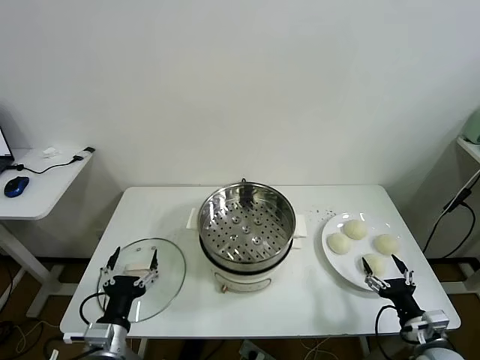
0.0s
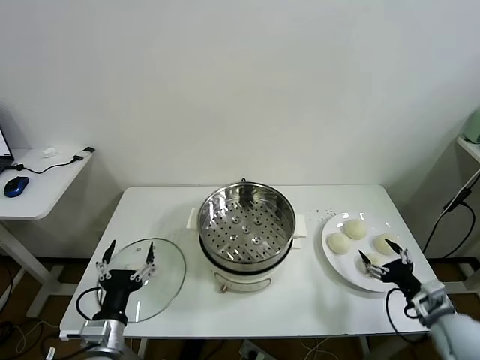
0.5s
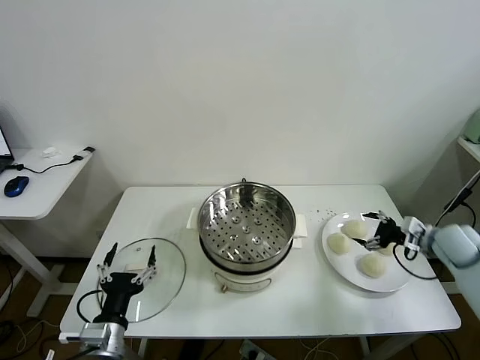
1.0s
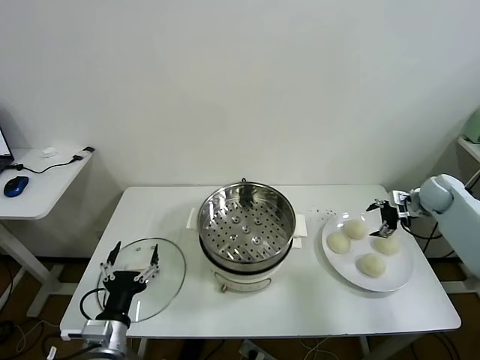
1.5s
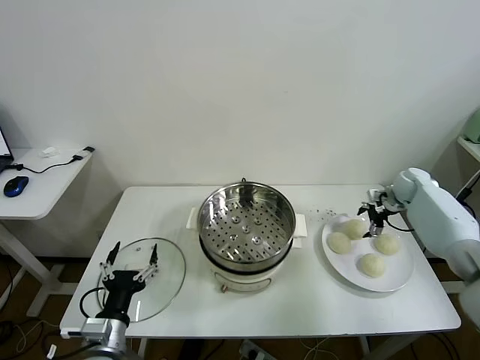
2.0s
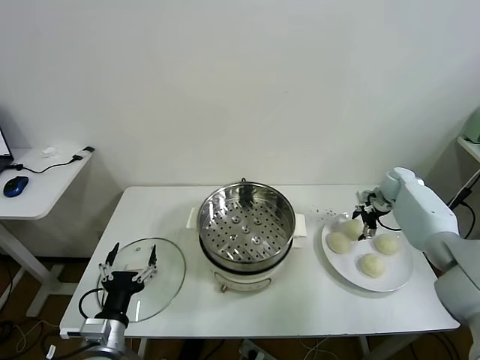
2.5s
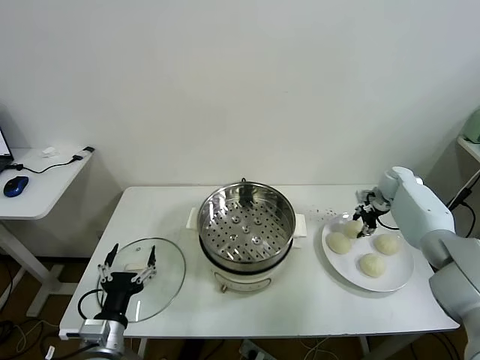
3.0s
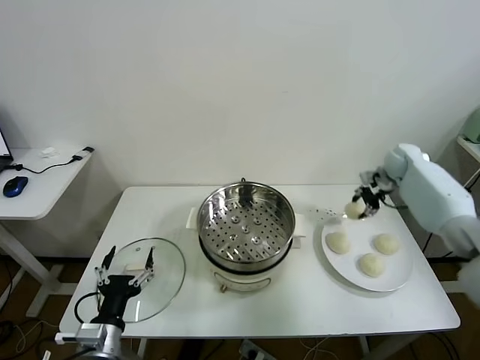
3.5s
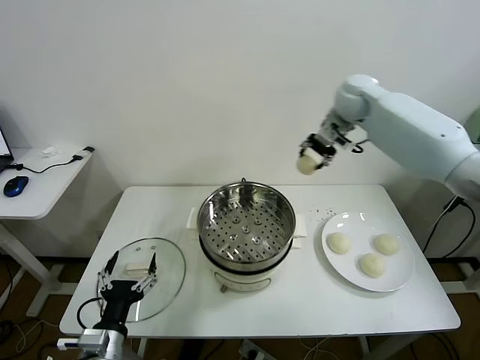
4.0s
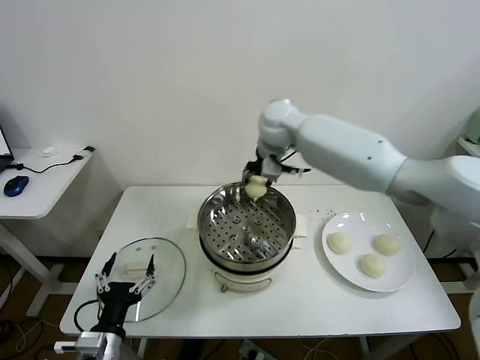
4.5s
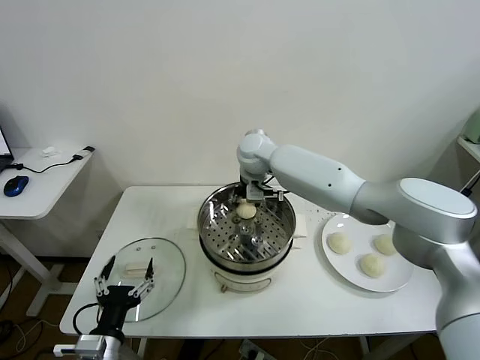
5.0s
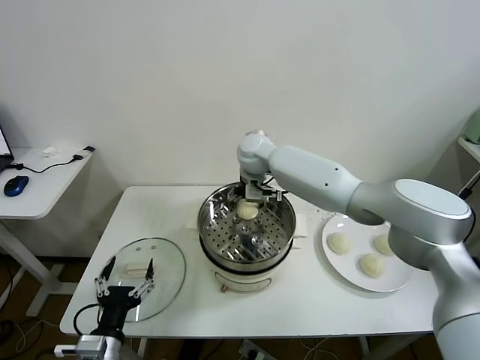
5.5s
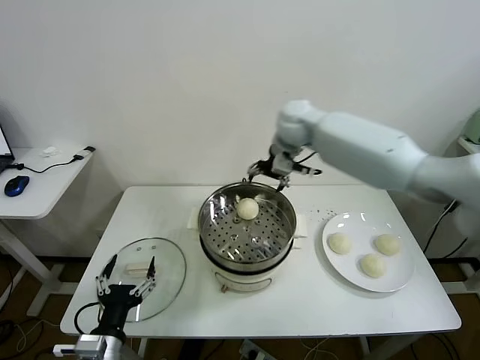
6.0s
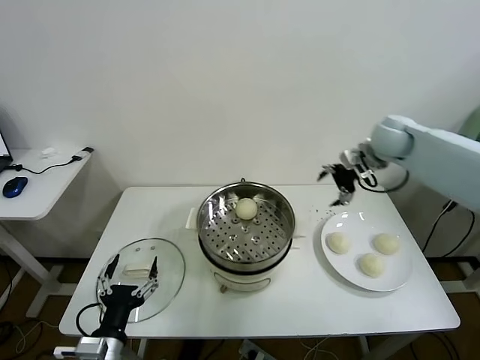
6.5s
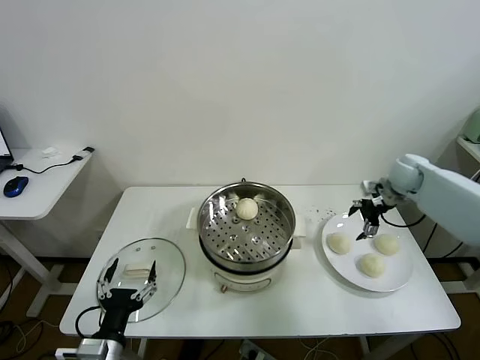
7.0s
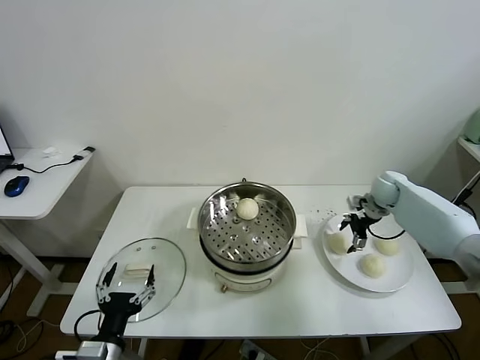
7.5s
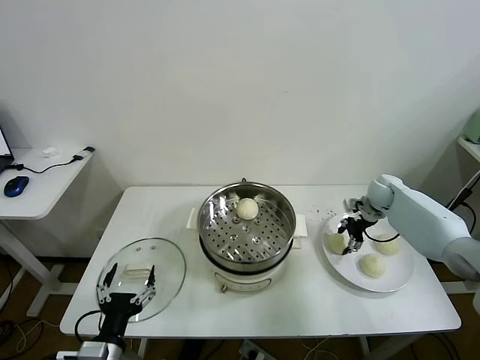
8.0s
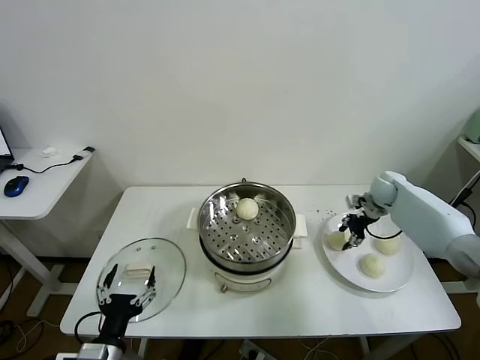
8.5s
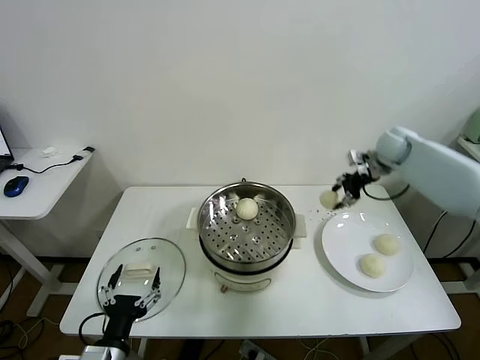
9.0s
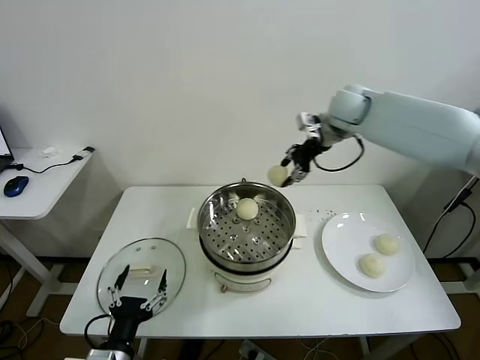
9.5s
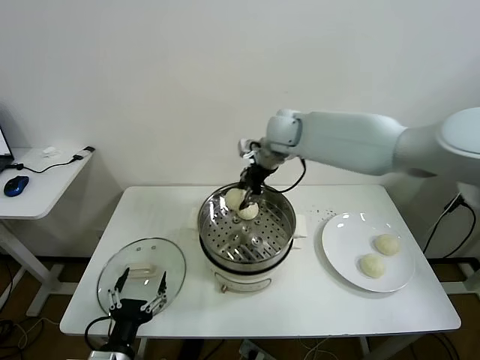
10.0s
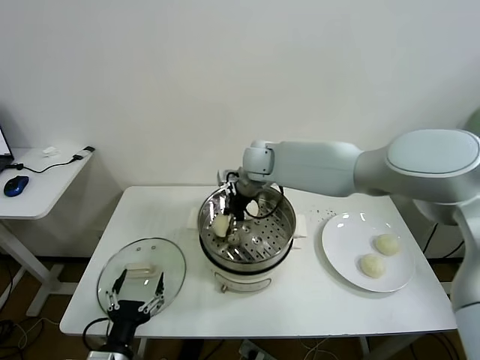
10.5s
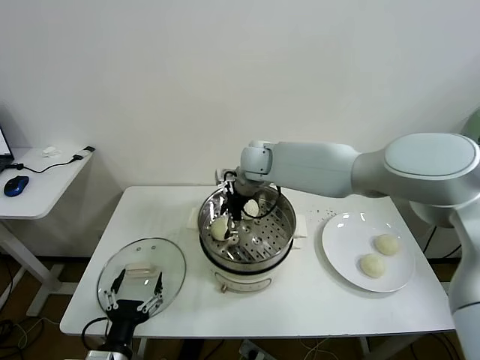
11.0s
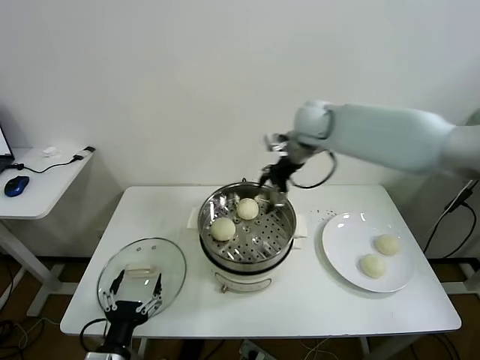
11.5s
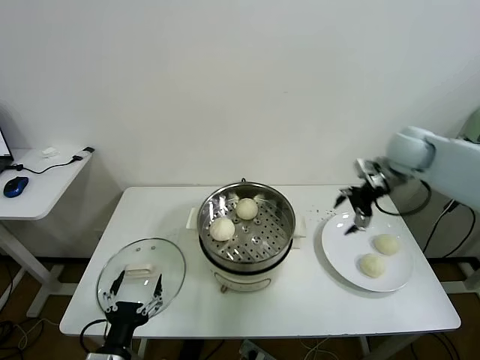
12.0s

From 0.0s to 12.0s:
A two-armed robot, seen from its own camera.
Task of the whole recording: take steamed baozi put them in steamer.
Step, from 0.0s to 2.5s: Grasp the baozi in the plate with right gripper.
Step, from 3.0s to 5.5s: Place the baozi on the steamer with right gripper.
Step, from 6.0s to 8.0s: Grasp the baozi in the plate with right gripper.
Step, from 8.5s to 11.0s: Place the baozi on the steamer with right gripper.
From 2.0s to 4.0s: The right gripper moves upward and to the left, approximately 35 cm, and closes.
From 4.0s to 6.0s: The right gripper goes to the left and returns, roughly 15 cm each way, and opens up.
From 6.0s to 8.0s: The right gripper shifts roughly 35 cm to the right and downward, and closes its fingers.
From 8.0s to 10.0s: The right gripper goes approximately 35 cm to the left and upward.
From 10.0s to 12.0s: The right gripper travels to the right by about 30 cm, and opens.

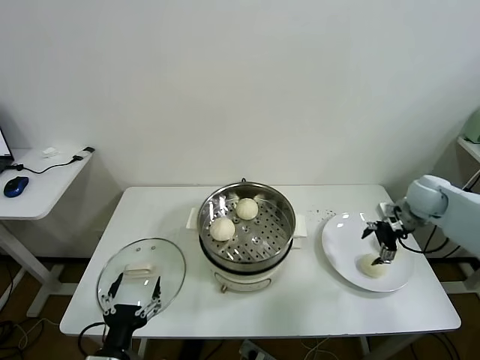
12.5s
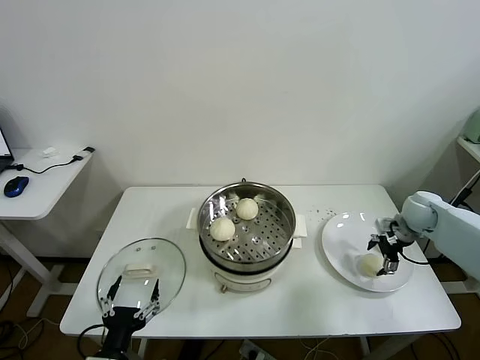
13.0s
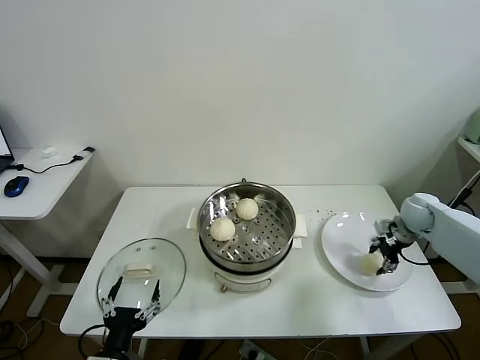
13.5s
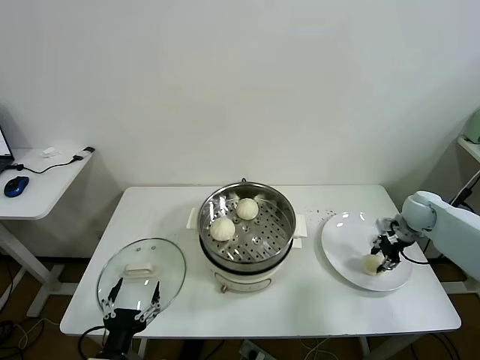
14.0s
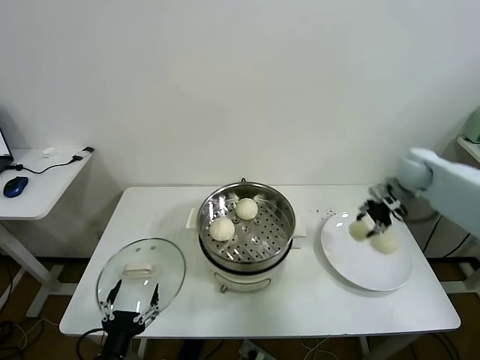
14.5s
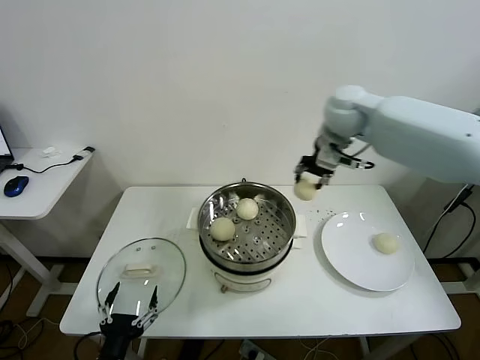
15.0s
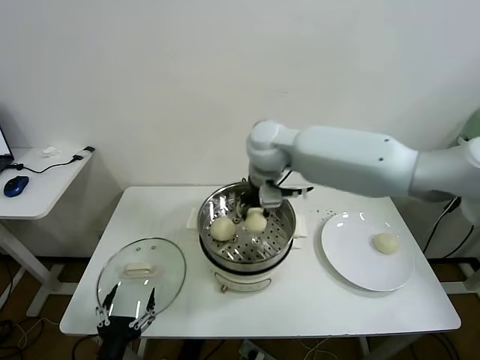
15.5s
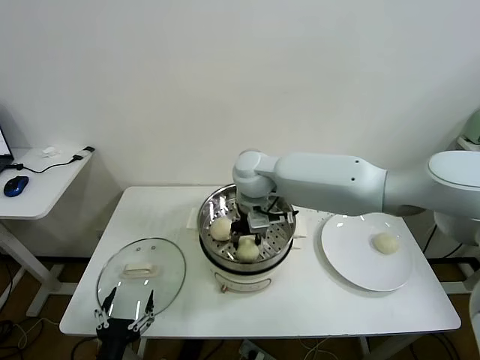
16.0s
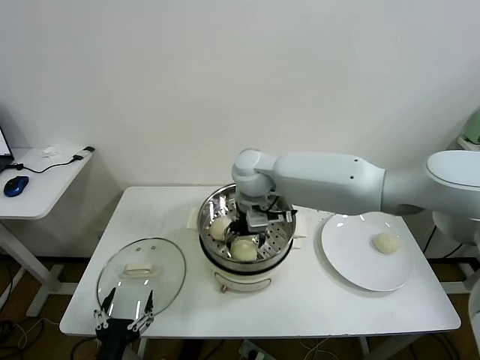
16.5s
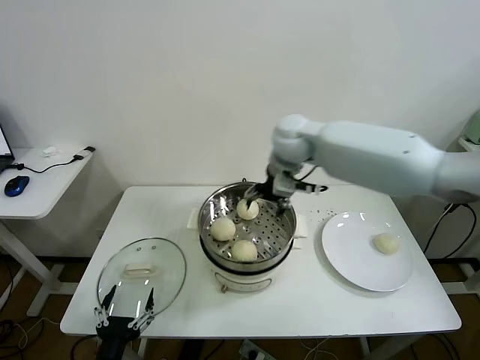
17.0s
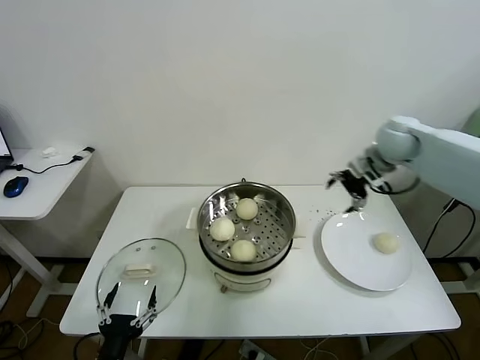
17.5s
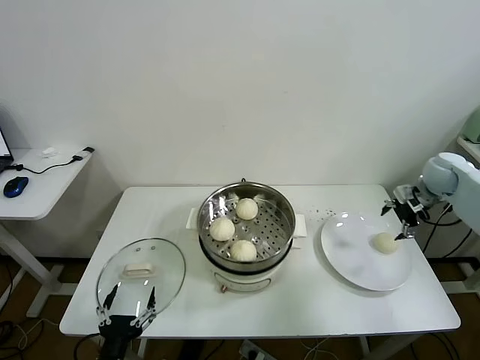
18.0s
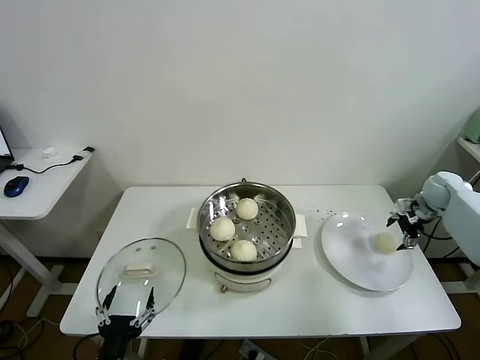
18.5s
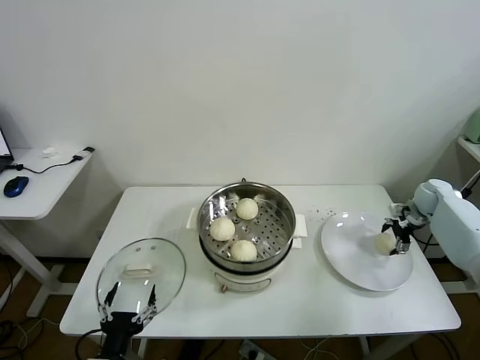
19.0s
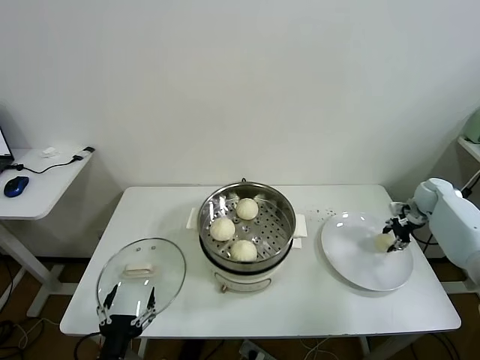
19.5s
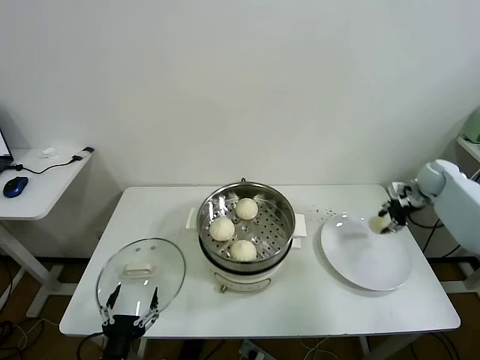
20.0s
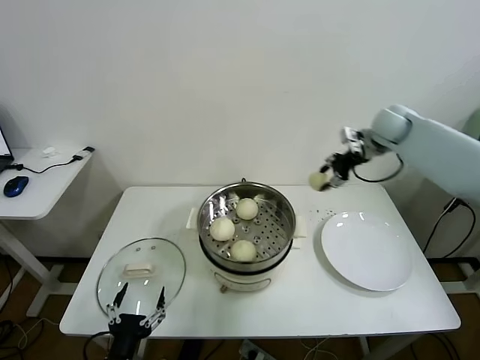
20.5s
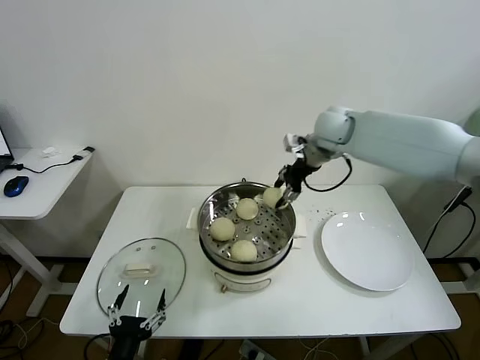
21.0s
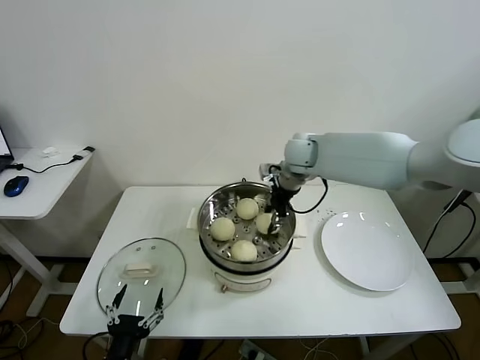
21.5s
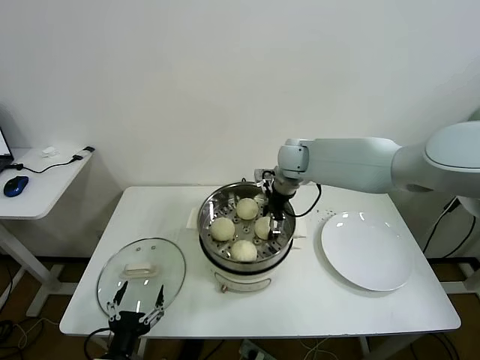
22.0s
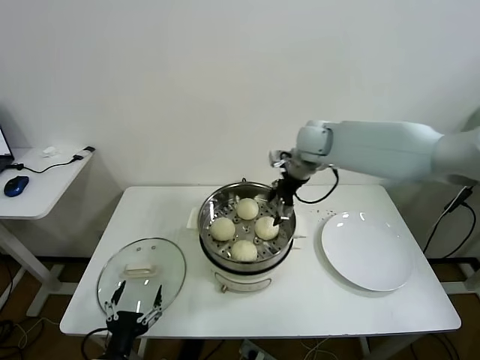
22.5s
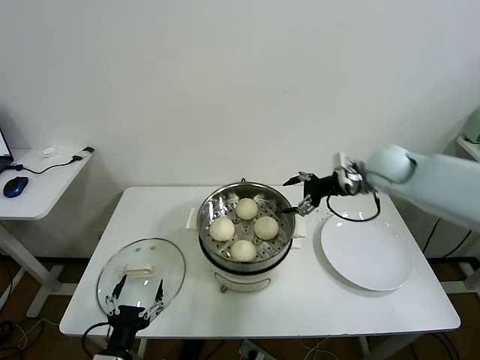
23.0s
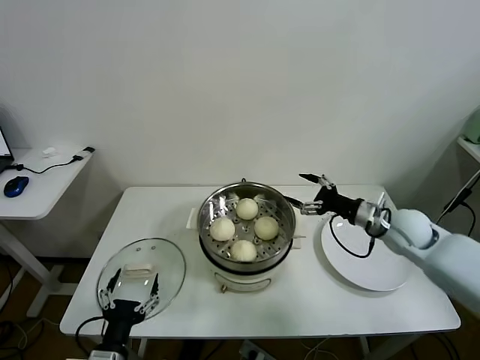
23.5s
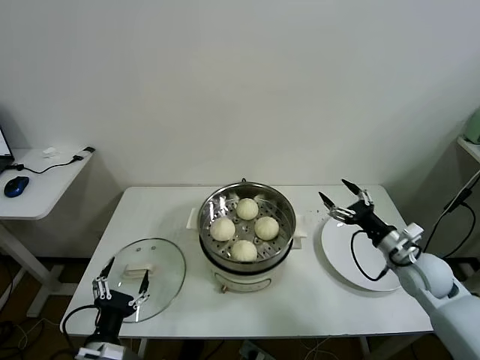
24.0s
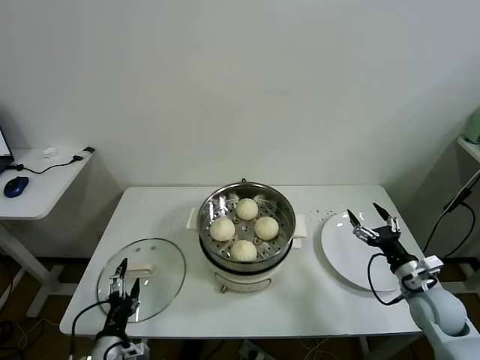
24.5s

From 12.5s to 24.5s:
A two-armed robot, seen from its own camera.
Task of the whole recording: take steamed baozi put them in steamer.
Step, from 14.0s to 16.5s: Place the baozi on the steamer with right gripper.
Step, from 17.0s to 19.0s: Grasp the baozi in the plate with right gripper.
Step, from 19.5s to 22.0s: Place the baozi on the steamer with right gripper.
From 12.5s to 14.5s: The right gripper is displaced upward and forward by some 10 cm, and closes.
From 14.5s to 16.5s: The right gripper travels to the left by roughly 40 cm, and opens.
From 16.5s to 18.5s: The right gripper travels to the right by roughly 50 cm.
From 18.5s to 20.5s: The right gripper goes roughly 25 cm to the left and upward, and closes up.
From 20.5s to 22.5s: The right gripper heads to the left, covering roughly 20 cm, and opens up.
From 22.5s to 24.5s: The right gripper goes some 40 cm backward, downward and to the right. Meanwhile the left gripper shifts by some 5 cm.

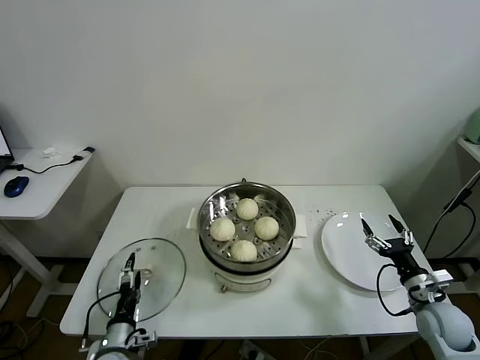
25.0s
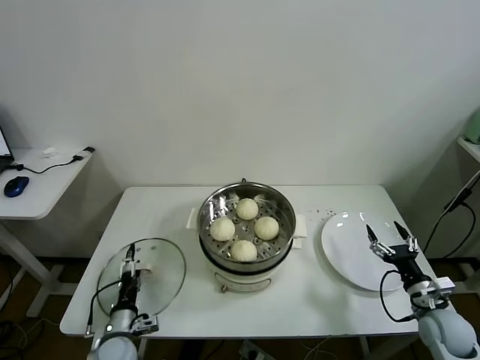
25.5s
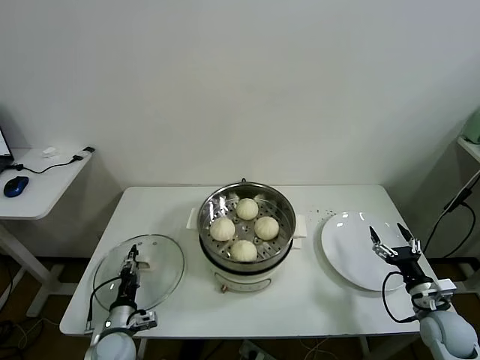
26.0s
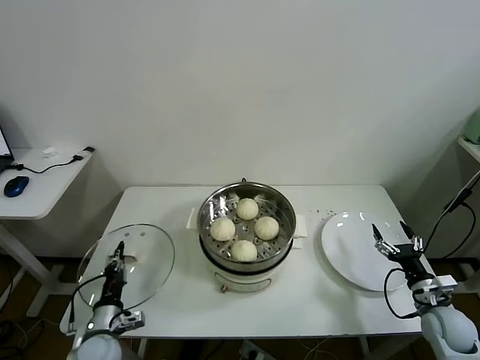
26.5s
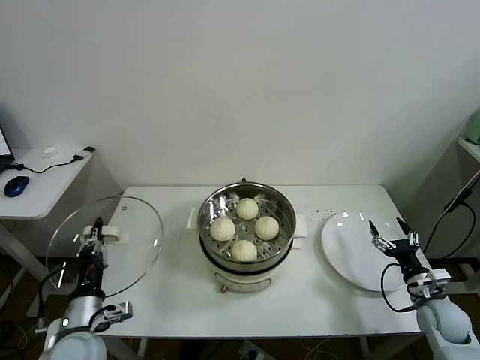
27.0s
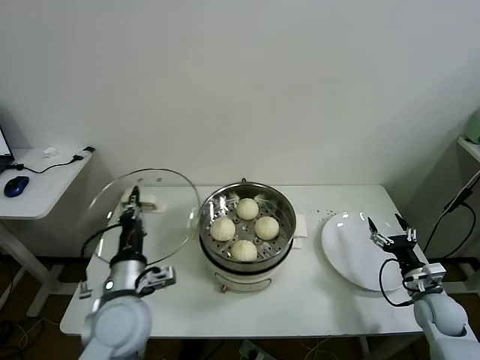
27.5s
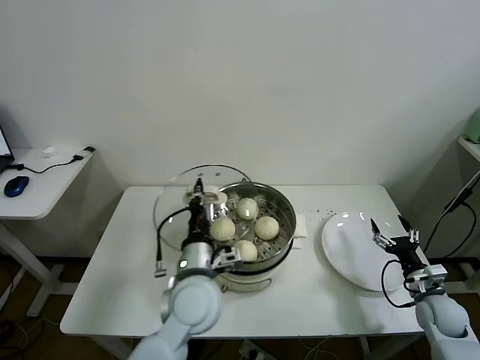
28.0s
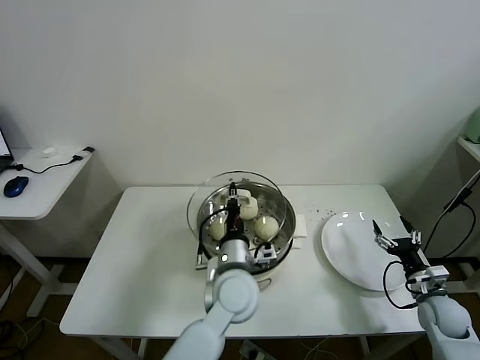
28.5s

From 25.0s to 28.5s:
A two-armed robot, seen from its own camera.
Task of the whole recording: take steamed baozi put them in steamer.
From 25.0s to 27.0s: The left gripper moves upward, some 10 cm, and closes up.
From 27.0s to 28.5s: The left gripper moves to the right, approximately 30 cm.
